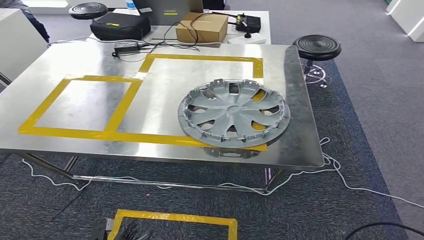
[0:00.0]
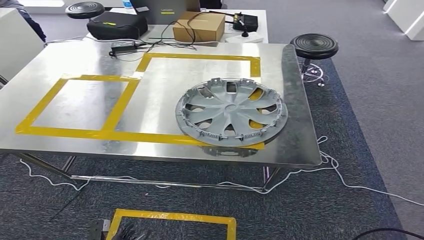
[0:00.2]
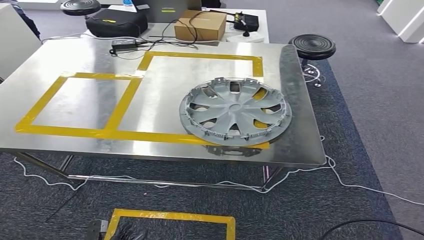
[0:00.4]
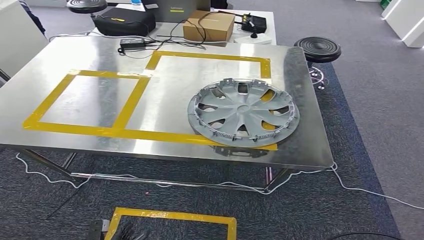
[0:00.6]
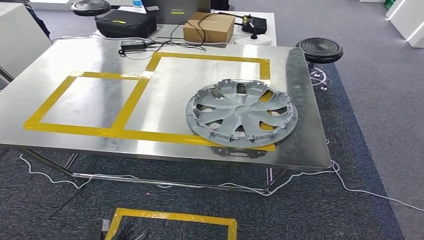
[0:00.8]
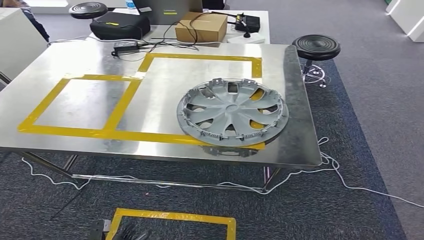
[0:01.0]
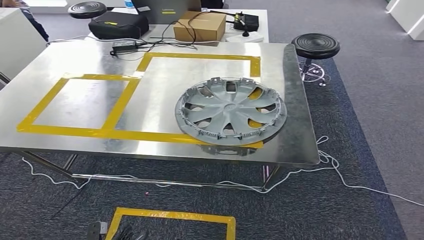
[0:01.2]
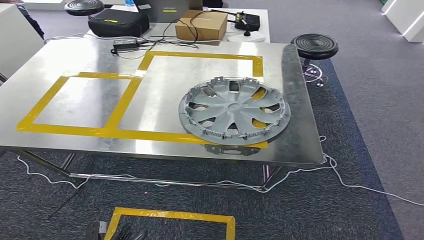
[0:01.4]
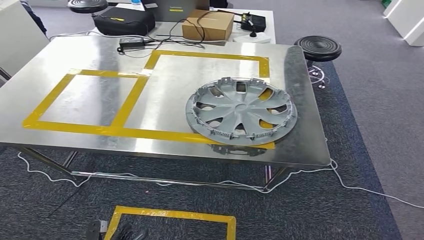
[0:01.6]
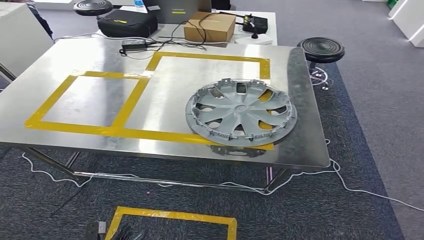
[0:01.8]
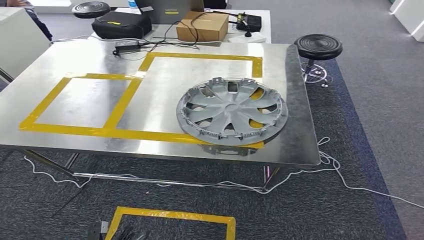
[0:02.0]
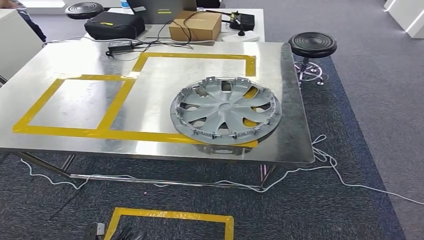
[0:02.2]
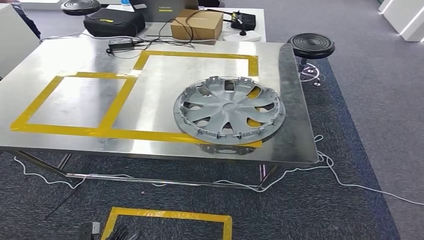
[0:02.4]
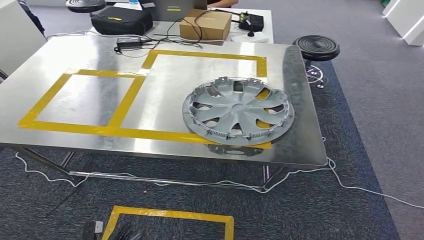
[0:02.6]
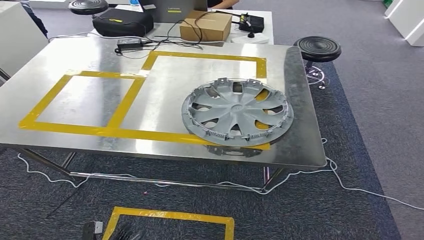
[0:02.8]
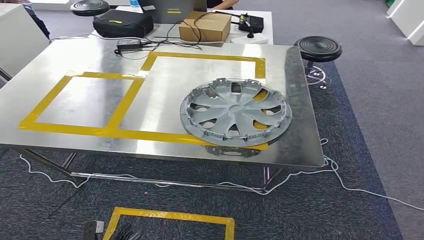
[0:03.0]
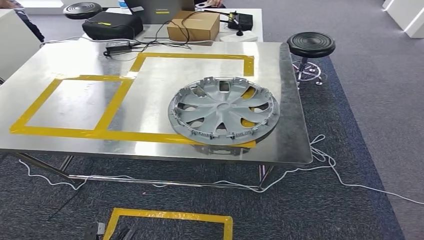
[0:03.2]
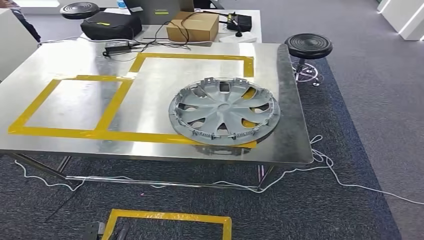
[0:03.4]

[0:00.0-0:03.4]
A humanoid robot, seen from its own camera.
Step, 0:00.0 to 0:03.2: Return to the initial position at the workbench.
